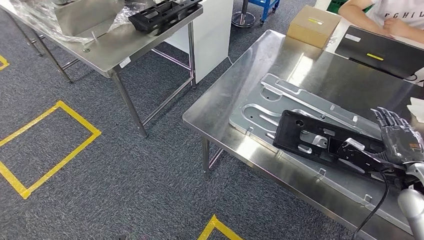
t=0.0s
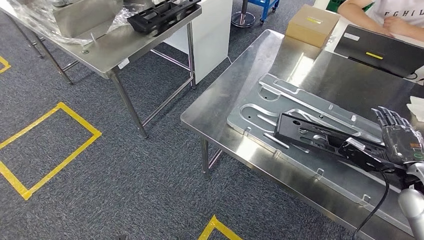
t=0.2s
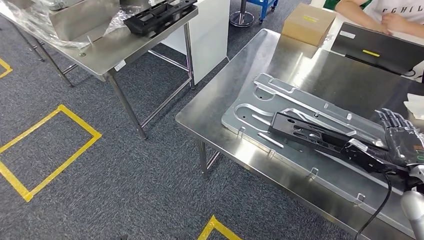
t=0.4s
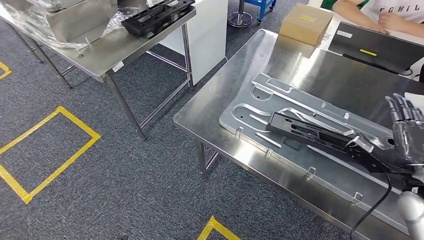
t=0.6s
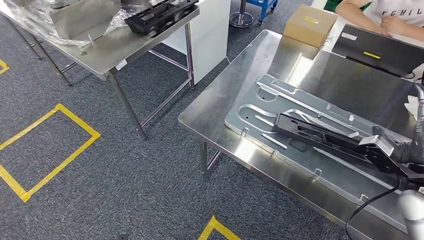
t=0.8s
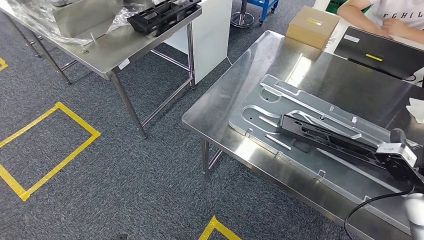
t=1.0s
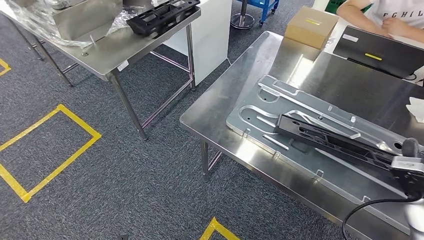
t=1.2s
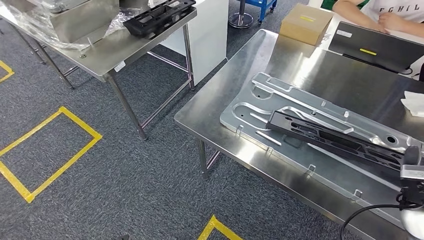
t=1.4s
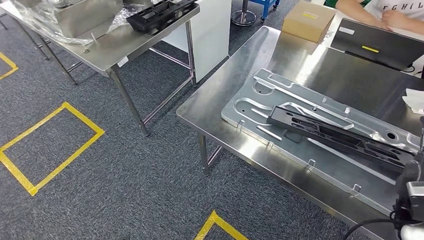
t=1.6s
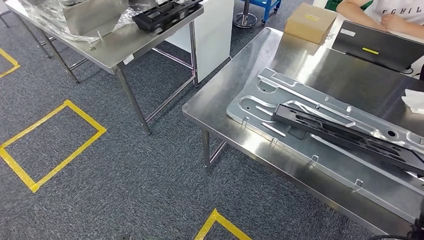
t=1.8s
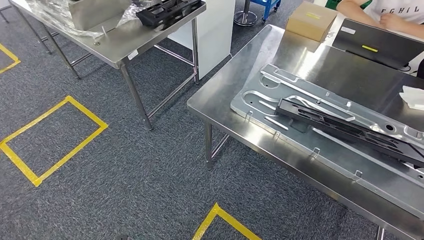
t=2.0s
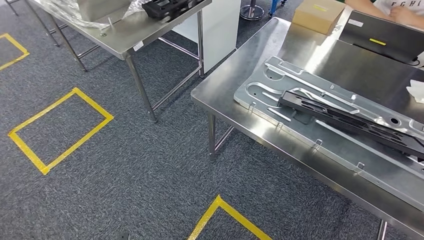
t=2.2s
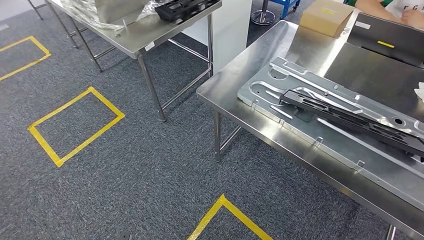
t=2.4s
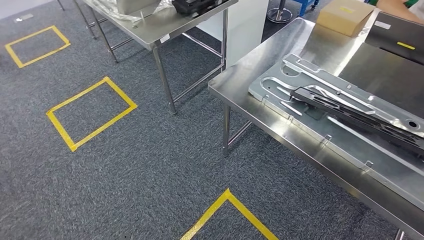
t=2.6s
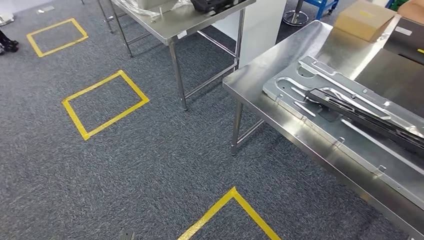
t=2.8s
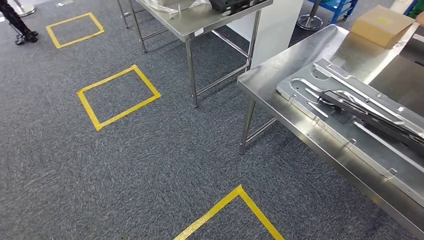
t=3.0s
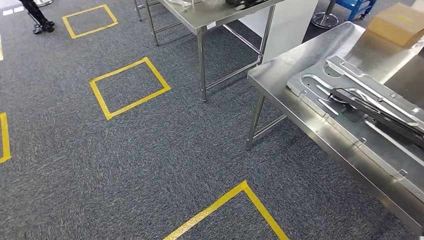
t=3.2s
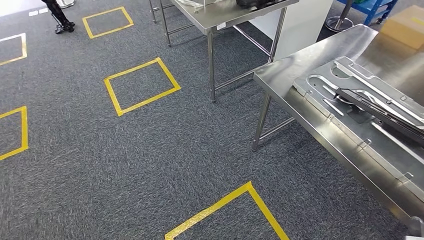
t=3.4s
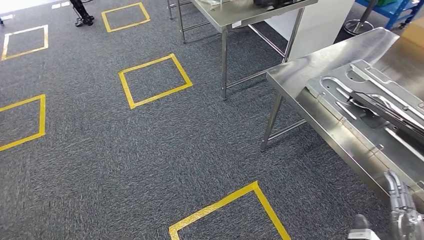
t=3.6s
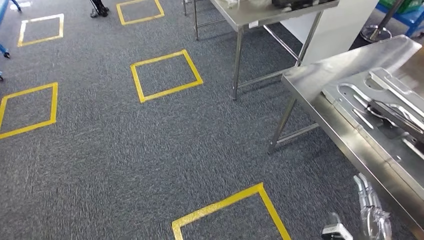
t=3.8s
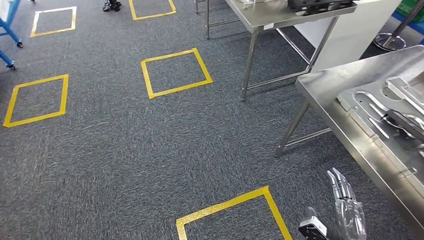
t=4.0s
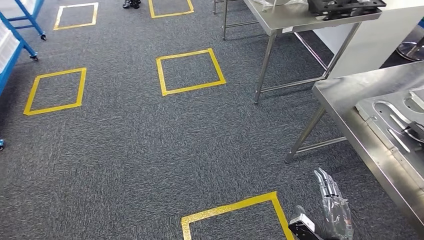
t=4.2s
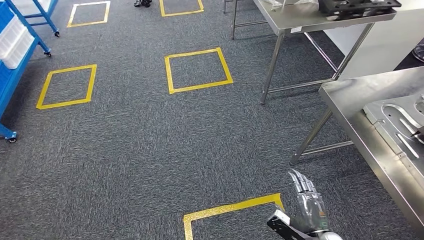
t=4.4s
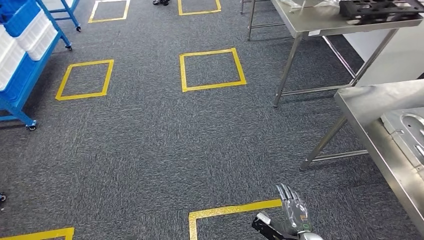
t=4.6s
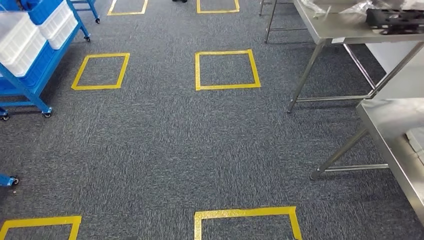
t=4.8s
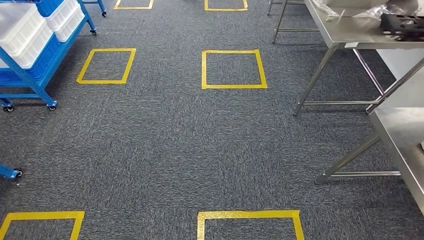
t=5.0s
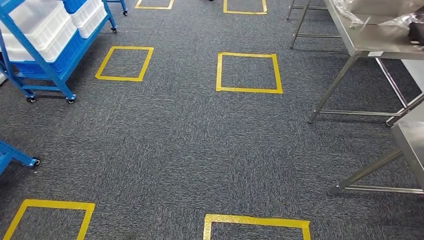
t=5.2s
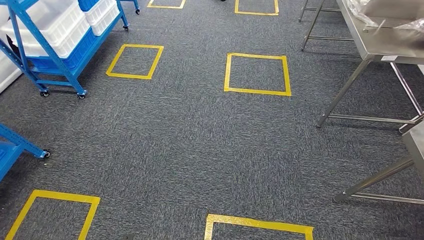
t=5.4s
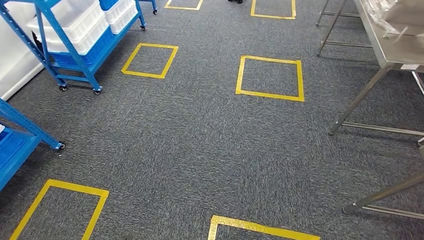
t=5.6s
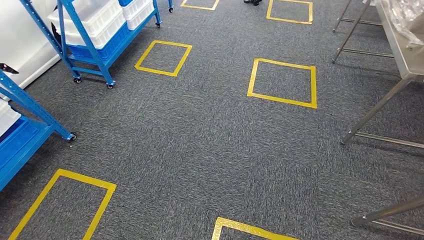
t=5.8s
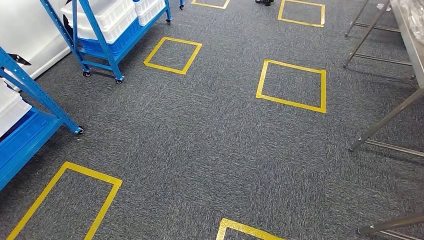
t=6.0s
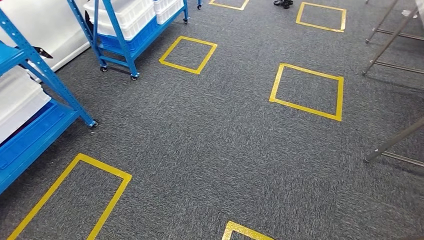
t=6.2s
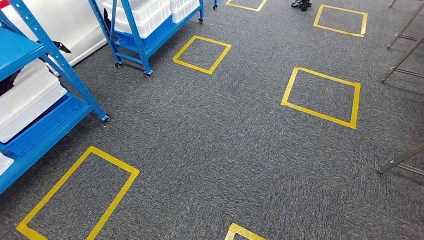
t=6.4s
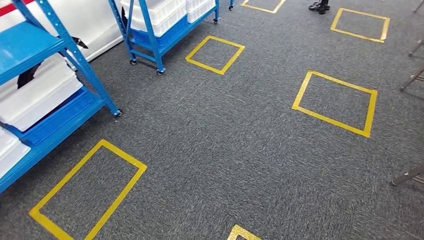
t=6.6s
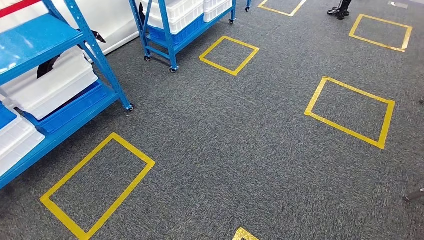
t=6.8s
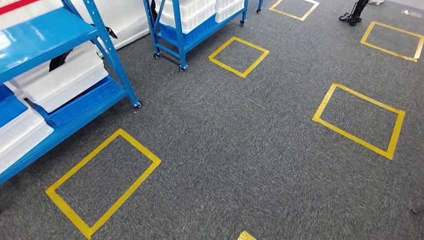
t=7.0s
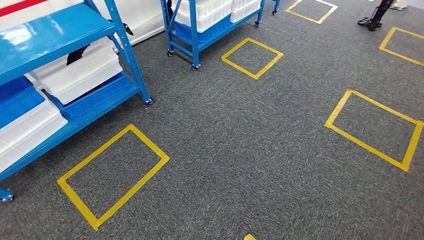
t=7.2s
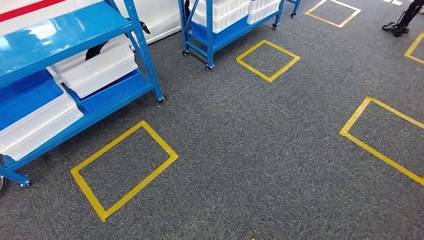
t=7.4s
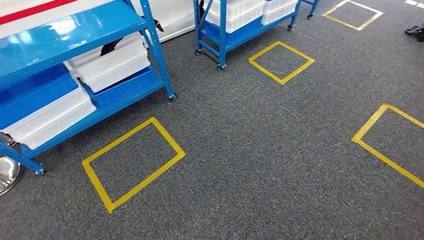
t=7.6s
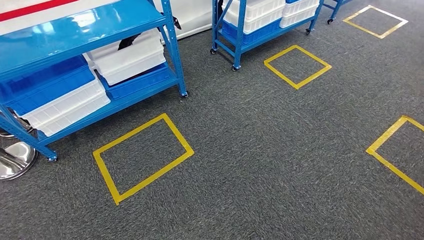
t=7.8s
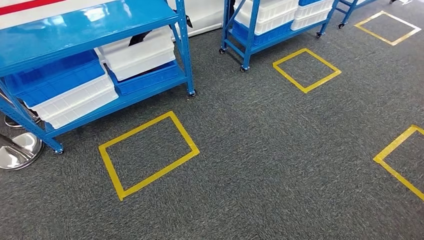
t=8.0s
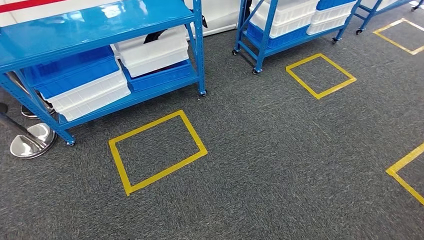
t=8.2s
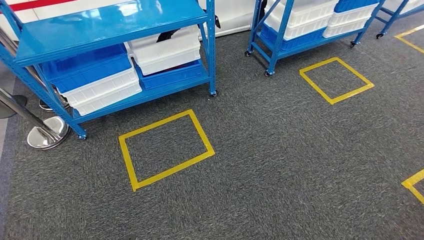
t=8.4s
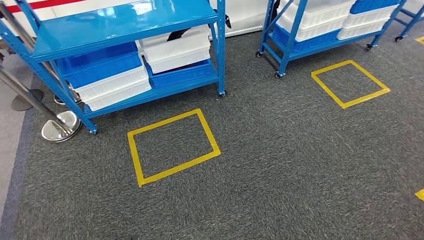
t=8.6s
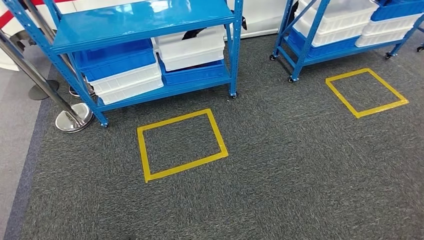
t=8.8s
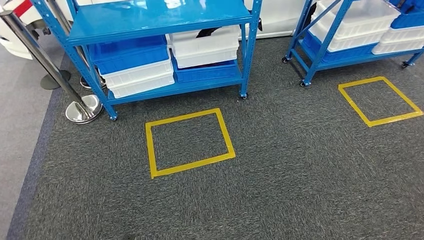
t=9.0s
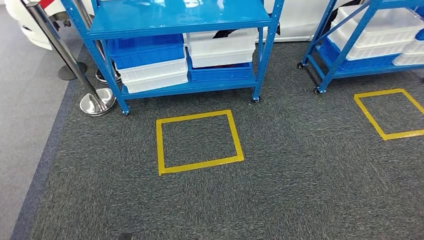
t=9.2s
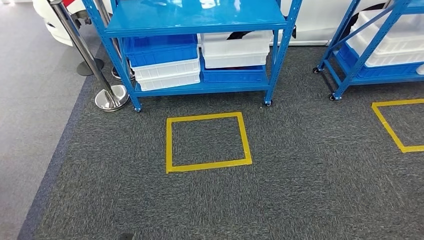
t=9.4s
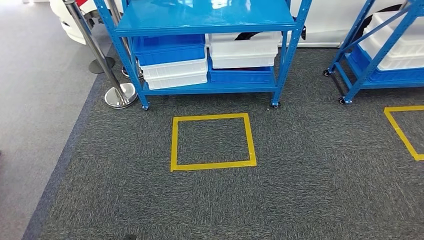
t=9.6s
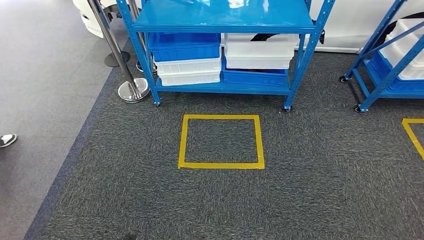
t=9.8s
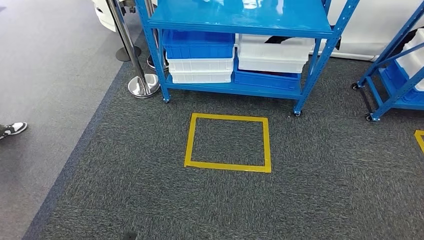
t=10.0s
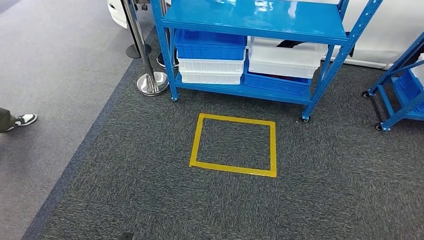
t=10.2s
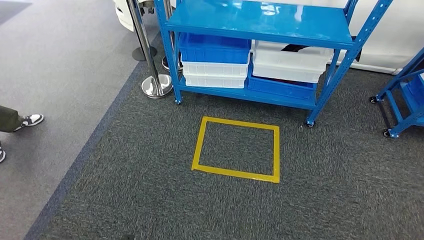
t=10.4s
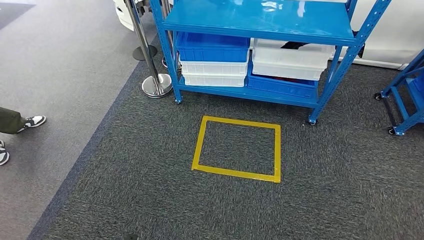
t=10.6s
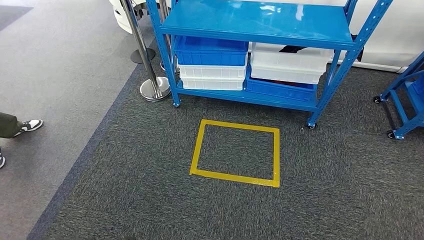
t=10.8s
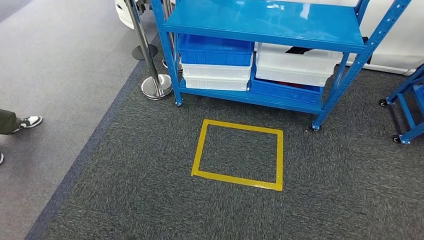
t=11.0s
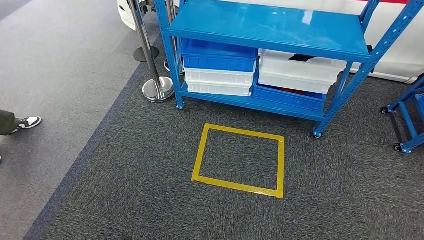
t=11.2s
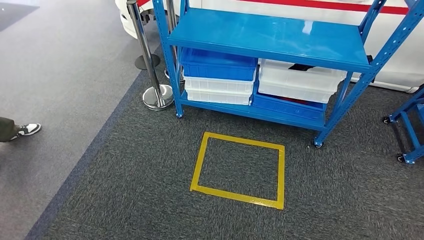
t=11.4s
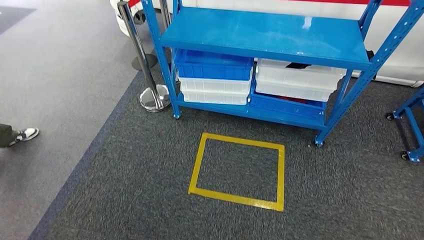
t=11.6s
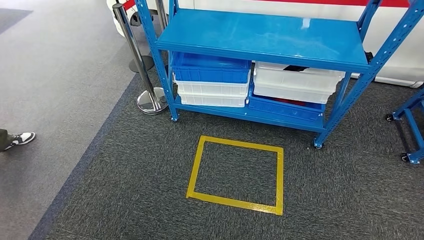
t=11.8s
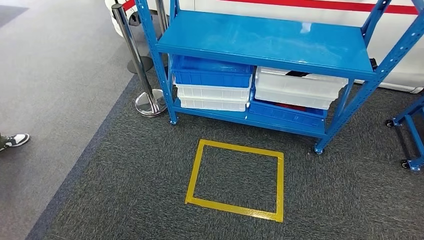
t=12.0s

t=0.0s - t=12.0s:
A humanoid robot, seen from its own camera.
Step, t=0.0s - t=2.8s: Insert the large parts into the corresponding slots on the workbench.

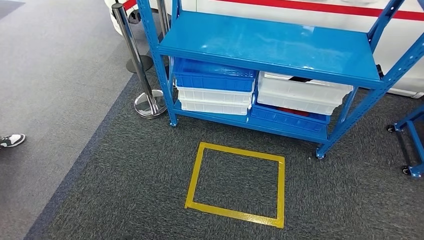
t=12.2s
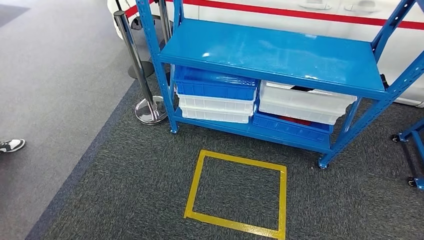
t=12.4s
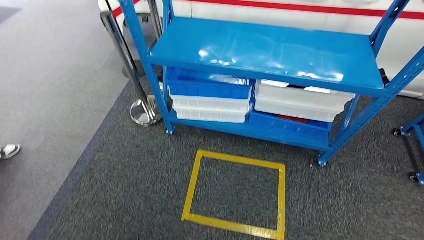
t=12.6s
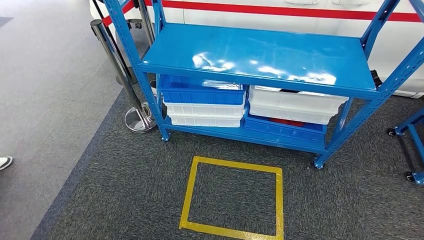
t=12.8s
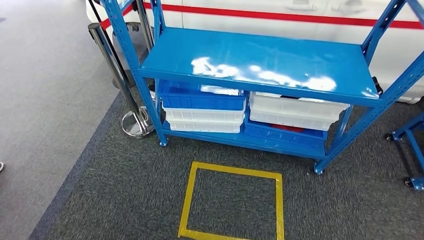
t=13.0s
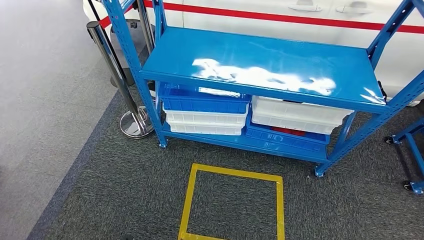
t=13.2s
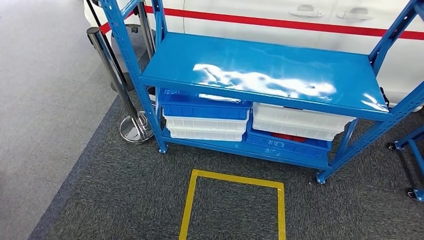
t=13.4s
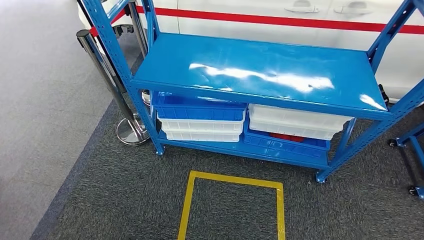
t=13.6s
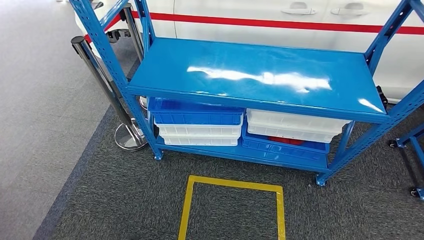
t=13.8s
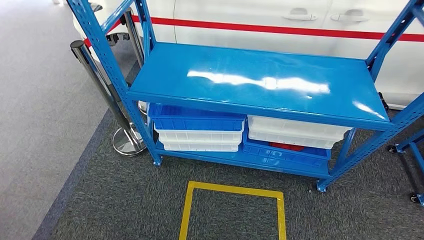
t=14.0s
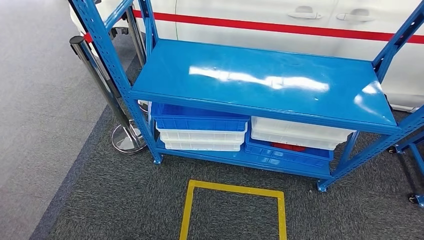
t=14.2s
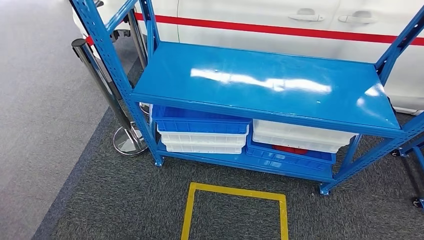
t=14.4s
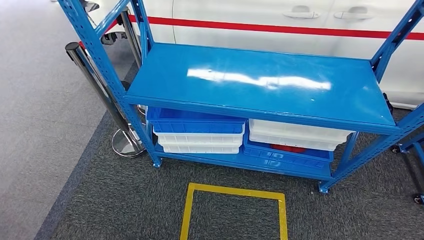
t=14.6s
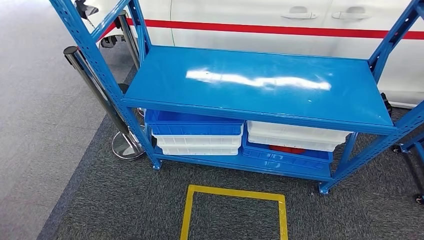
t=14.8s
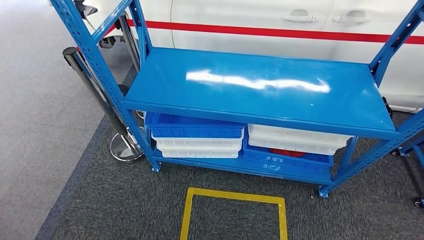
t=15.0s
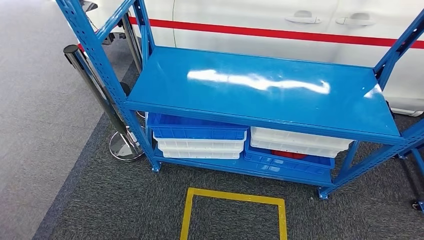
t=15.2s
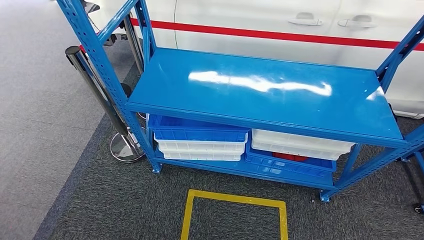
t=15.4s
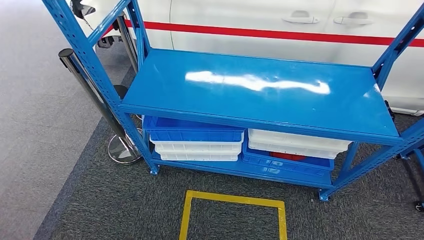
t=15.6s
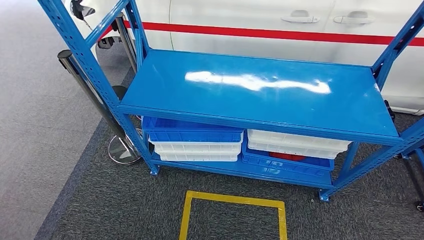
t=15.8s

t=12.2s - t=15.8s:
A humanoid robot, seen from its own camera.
Step, t=12.2s - t=15.8s: Return to the initial position at the shelf.
